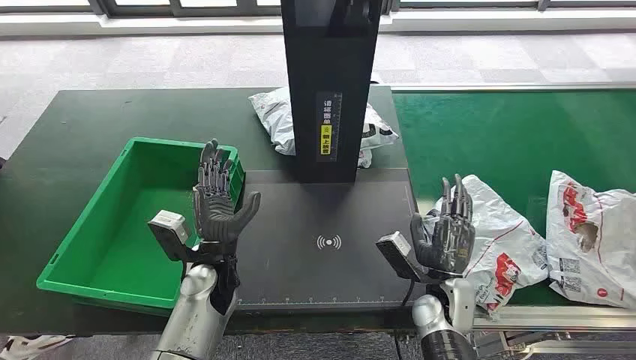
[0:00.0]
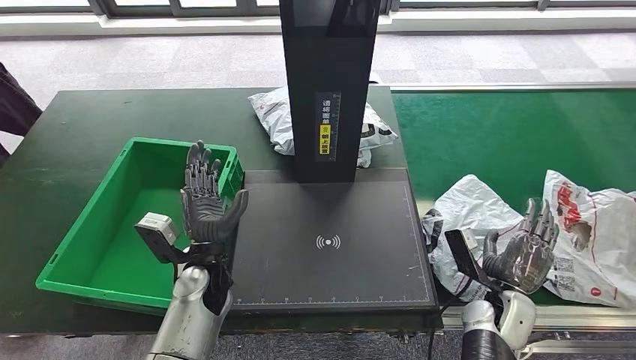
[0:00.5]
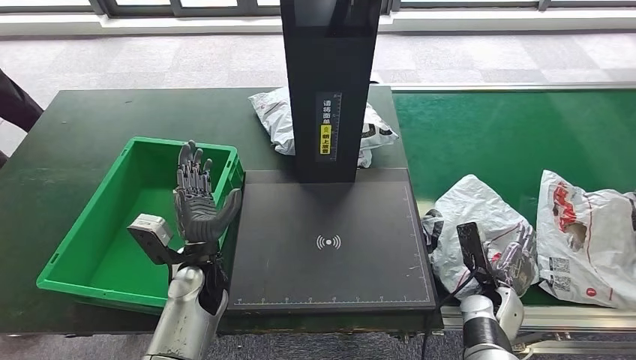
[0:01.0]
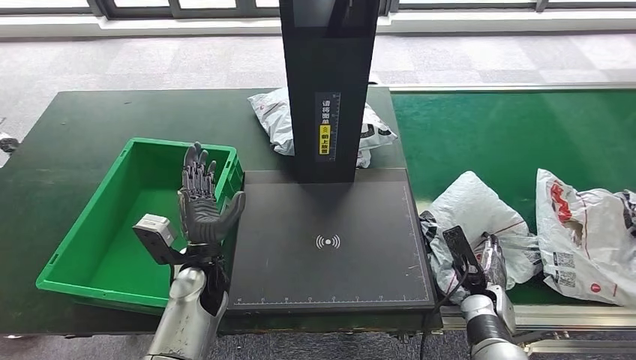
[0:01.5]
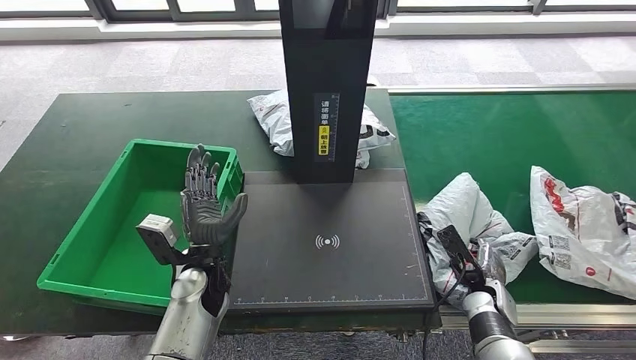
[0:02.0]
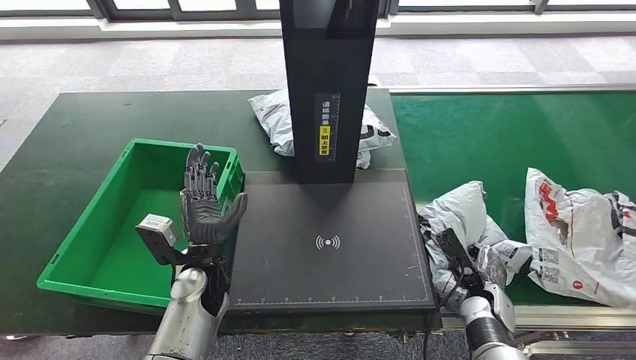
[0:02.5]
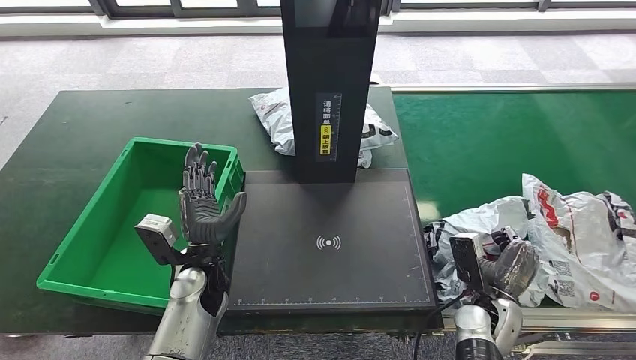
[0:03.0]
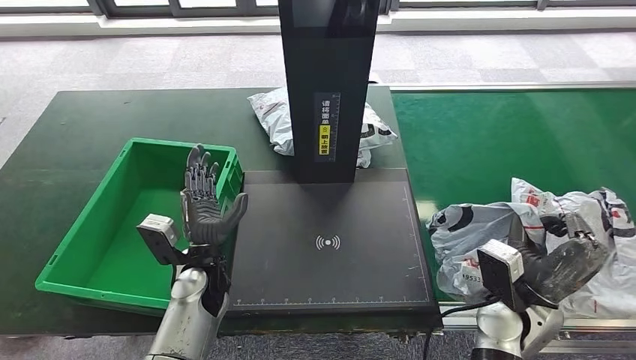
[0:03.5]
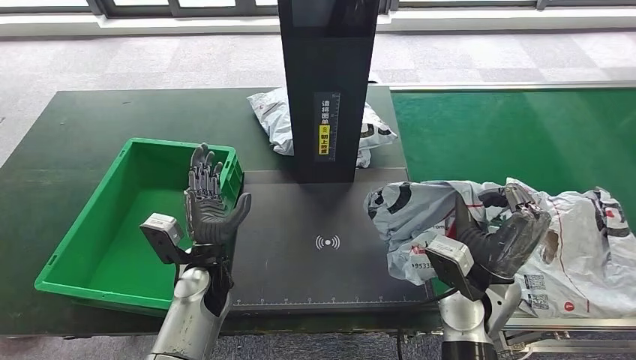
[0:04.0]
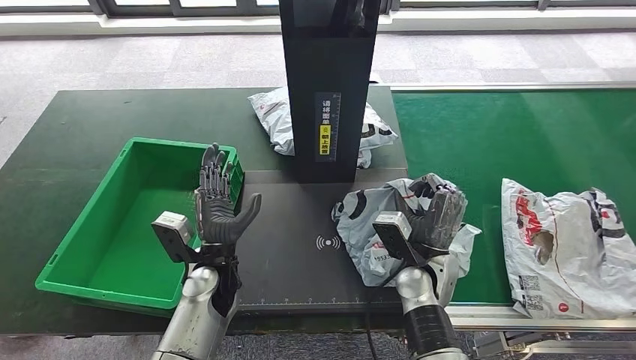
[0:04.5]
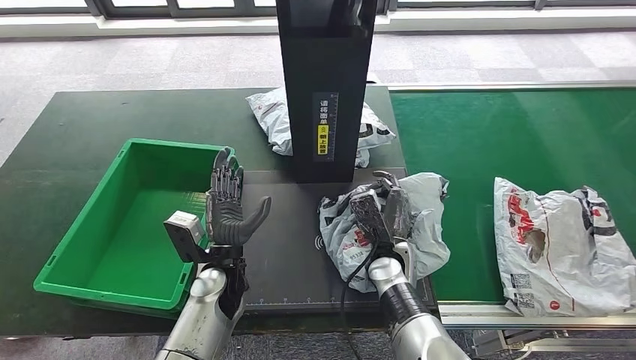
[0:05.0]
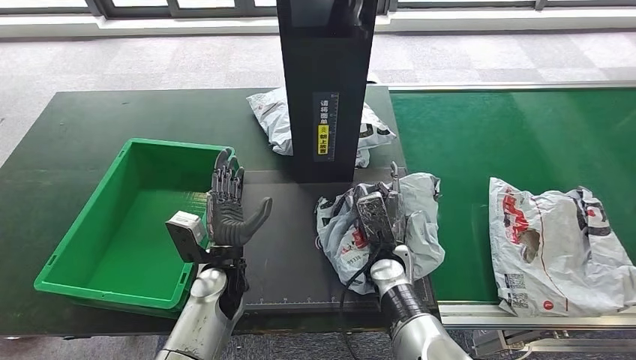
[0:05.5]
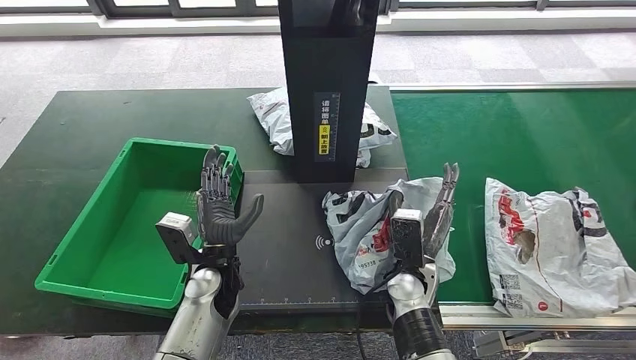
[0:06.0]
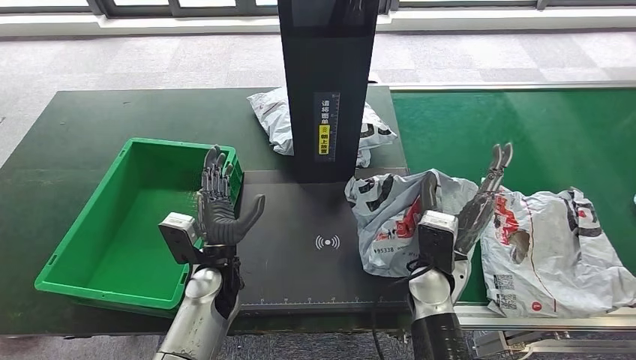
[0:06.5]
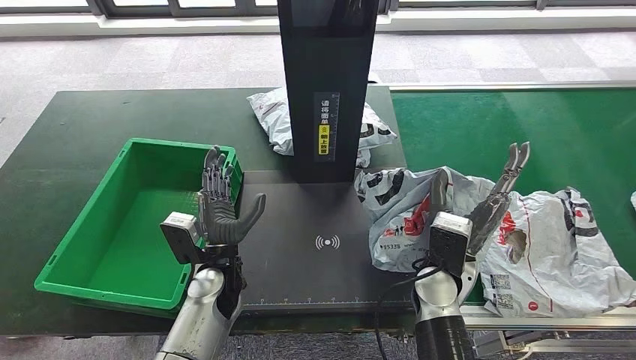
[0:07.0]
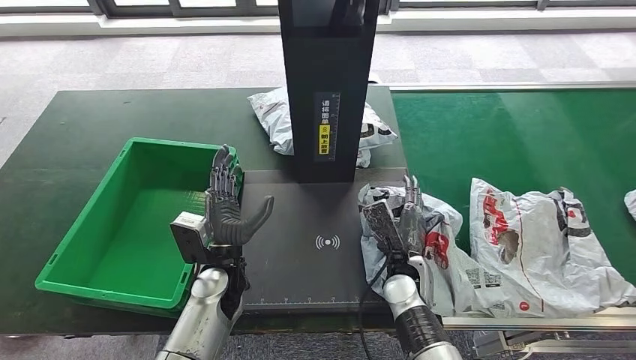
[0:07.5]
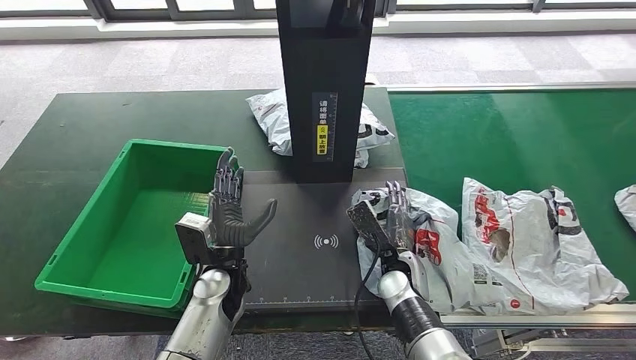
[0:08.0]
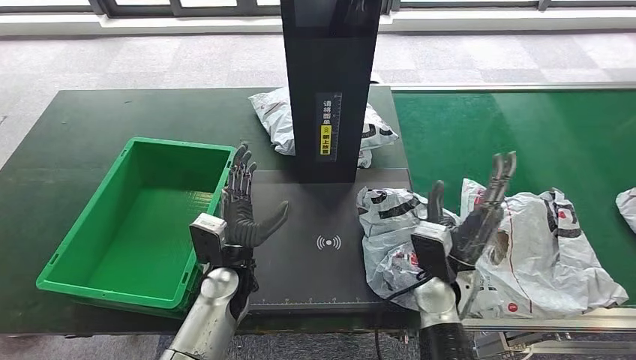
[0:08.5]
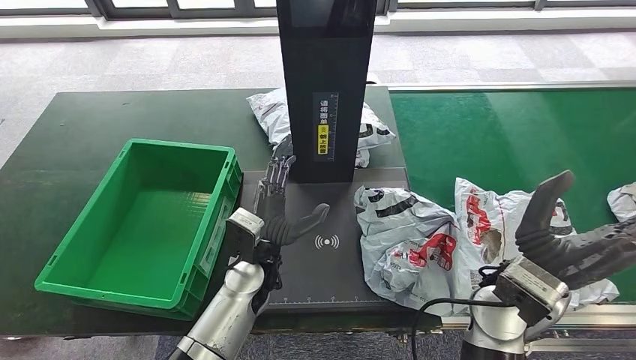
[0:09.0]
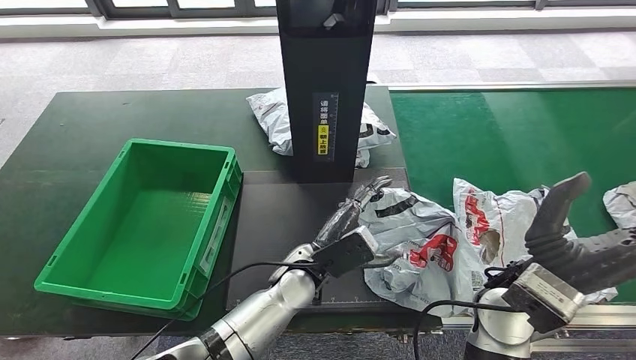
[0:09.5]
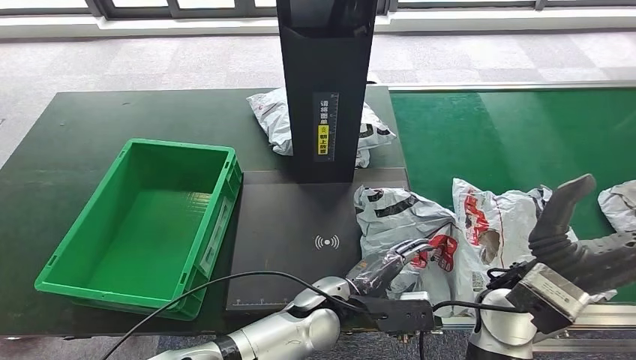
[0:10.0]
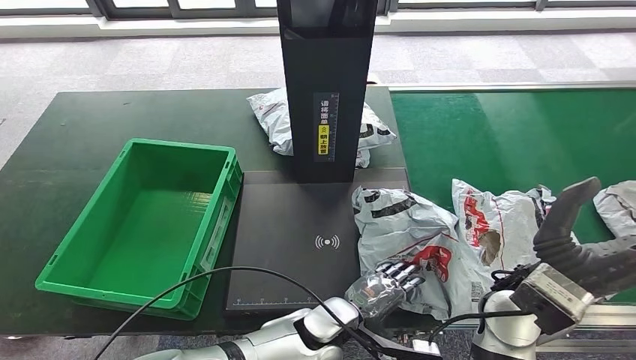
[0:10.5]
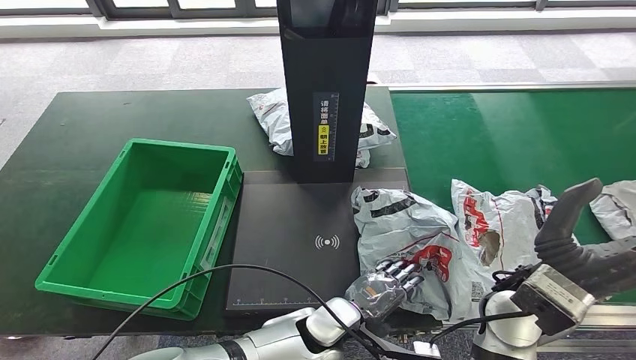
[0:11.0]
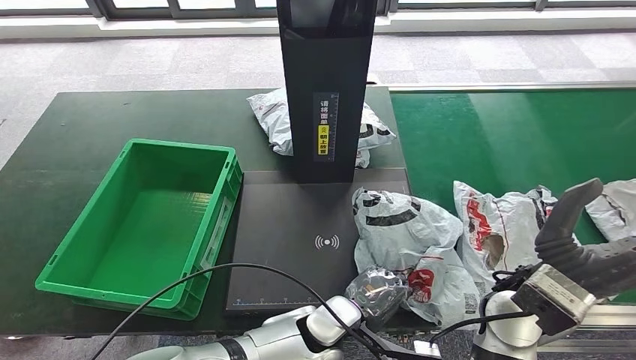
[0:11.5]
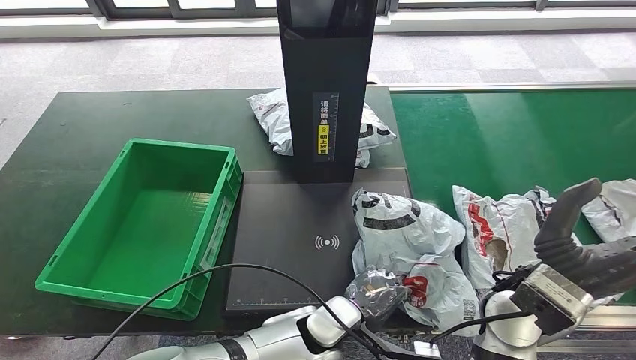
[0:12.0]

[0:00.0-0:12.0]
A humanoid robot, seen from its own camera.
Step, 0:00.0 to 0:03.5: Take the parcel off the conveyor belt.
Step, 0:04.0 to 0:09.0: Place the parcel onto the inbound machine.
0:04.0 to 0:06.0: The right hand travels to the left and downward by about 10 cm.

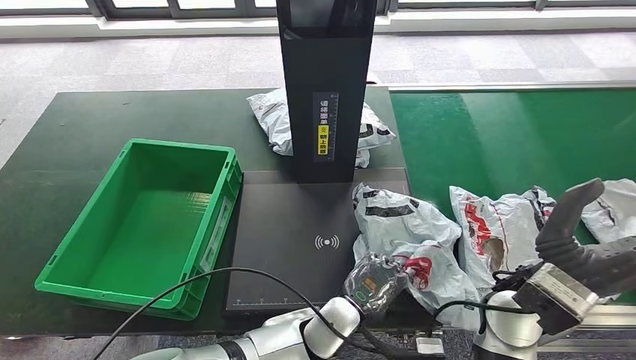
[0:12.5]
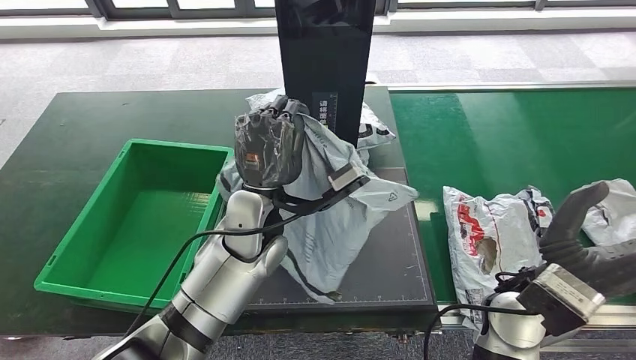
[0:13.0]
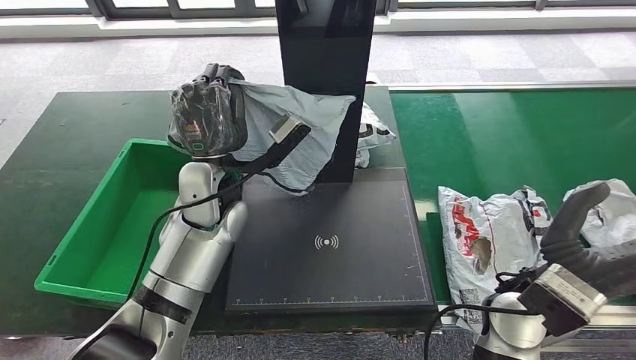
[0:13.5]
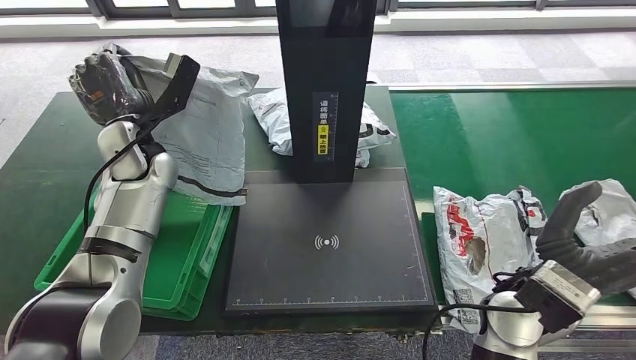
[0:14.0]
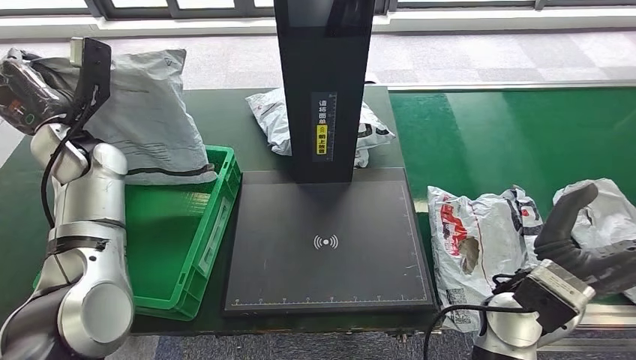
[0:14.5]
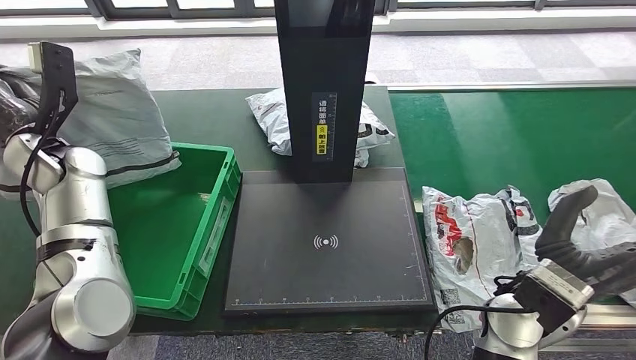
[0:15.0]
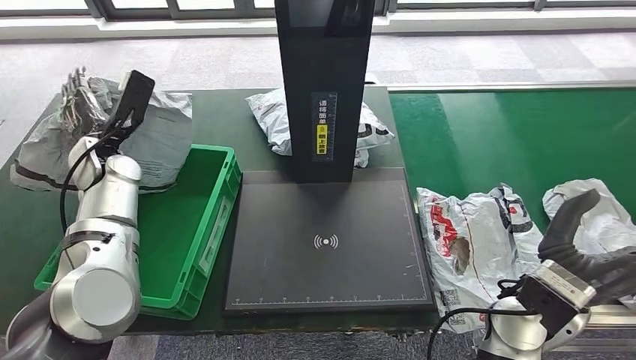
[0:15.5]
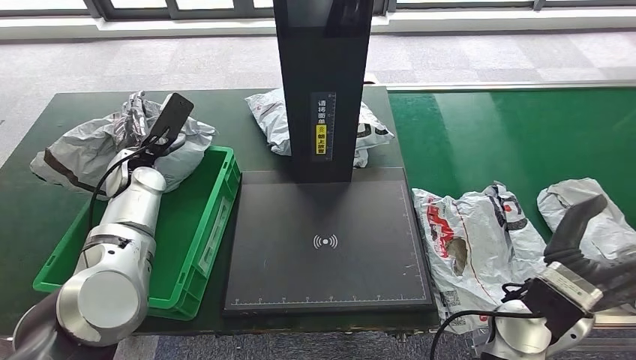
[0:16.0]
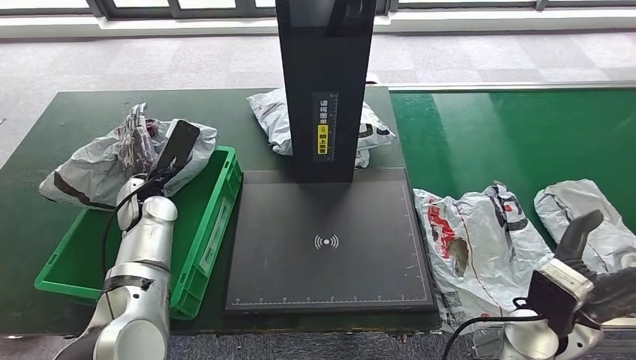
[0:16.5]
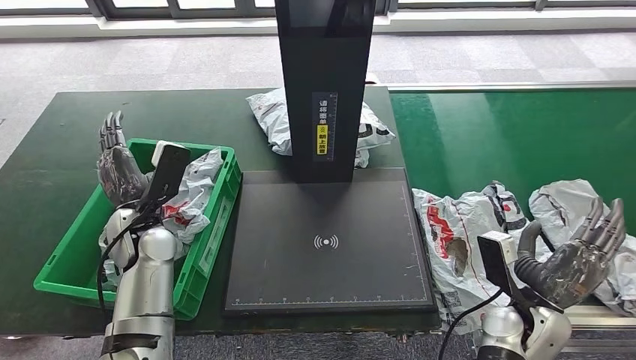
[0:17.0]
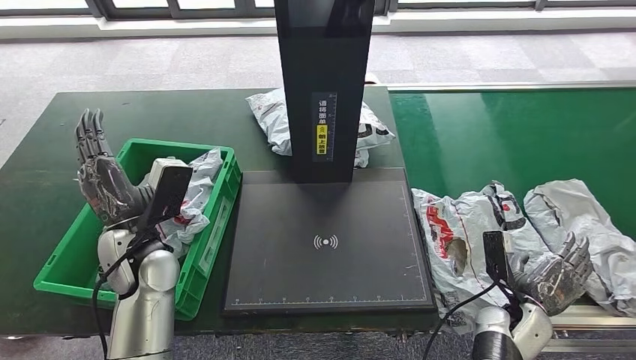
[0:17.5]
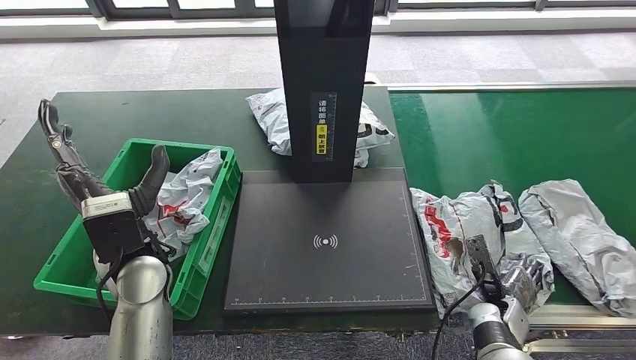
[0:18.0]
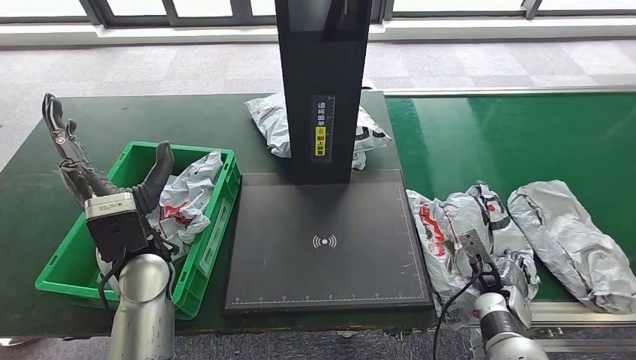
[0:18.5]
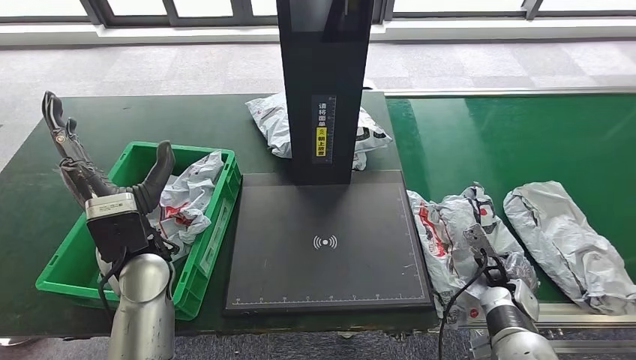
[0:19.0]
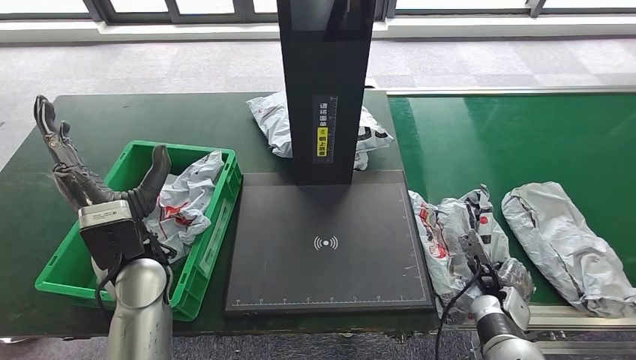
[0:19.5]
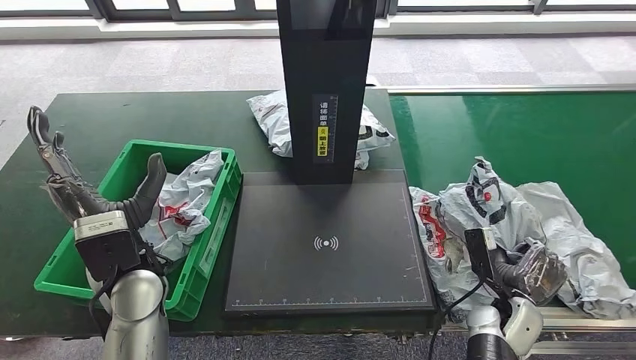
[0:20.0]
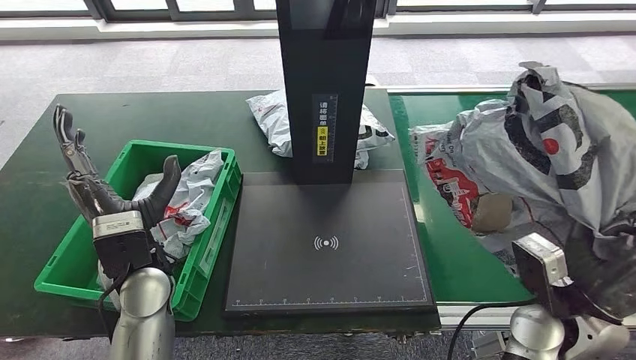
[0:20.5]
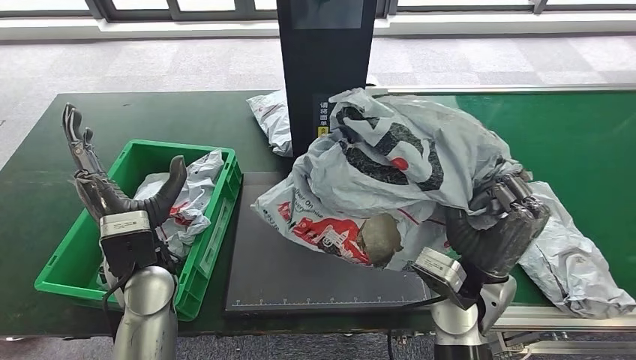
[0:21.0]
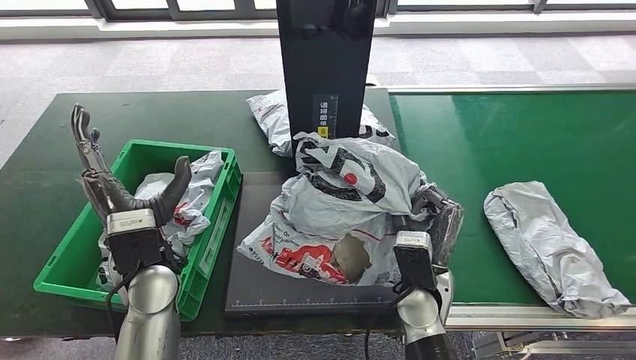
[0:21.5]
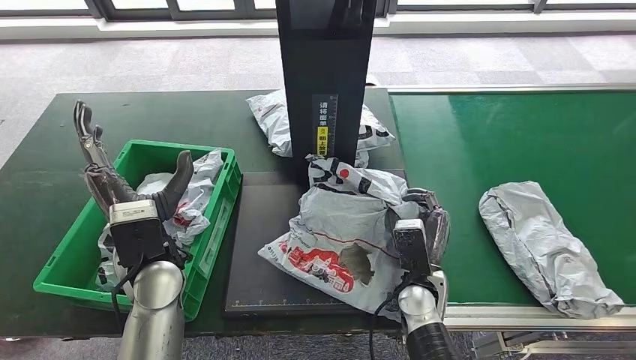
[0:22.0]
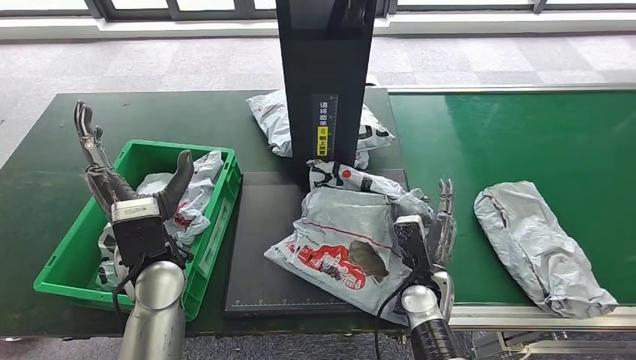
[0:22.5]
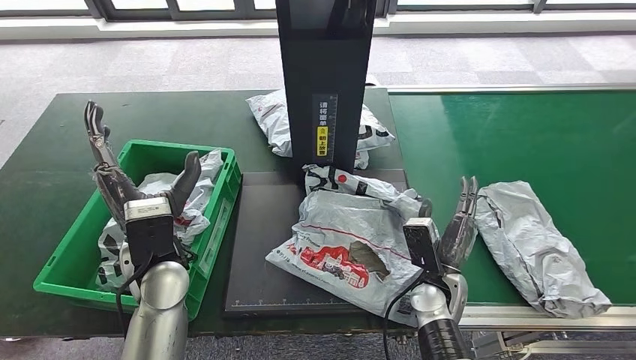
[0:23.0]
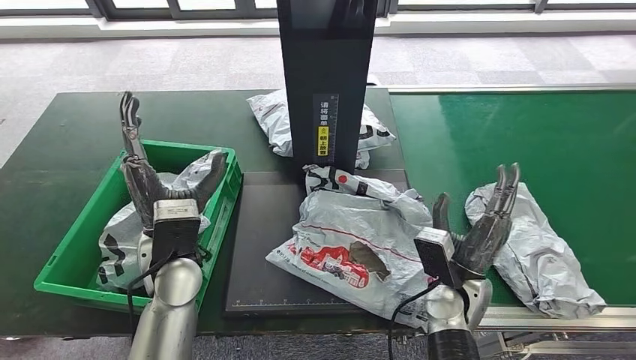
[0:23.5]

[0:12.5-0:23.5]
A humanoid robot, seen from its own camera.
Step, 0:14.0 to 0:17.5: Put the parcel inside the courier box.
Step, 0:18.0 to 0:20.5: Pick up the parcel from the conveyor belt.
